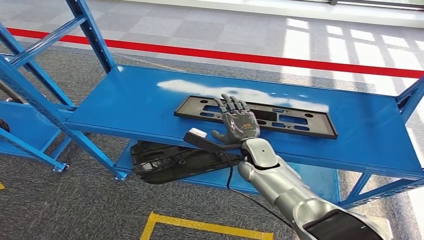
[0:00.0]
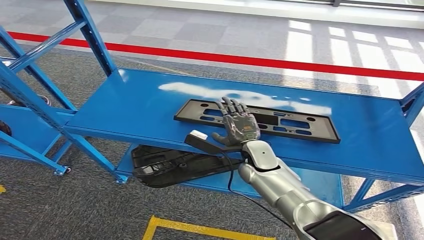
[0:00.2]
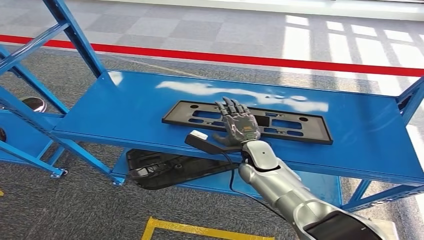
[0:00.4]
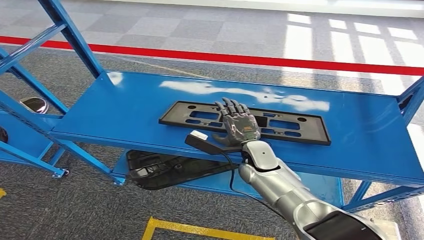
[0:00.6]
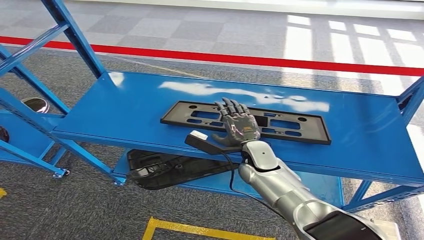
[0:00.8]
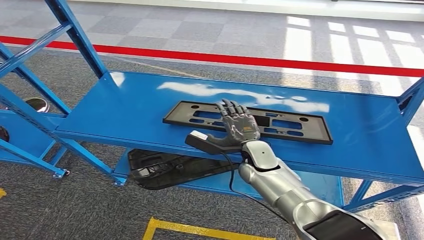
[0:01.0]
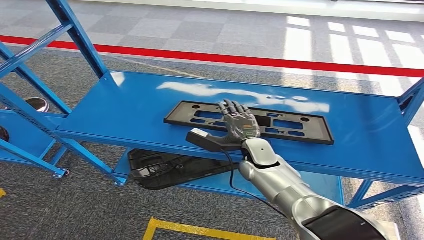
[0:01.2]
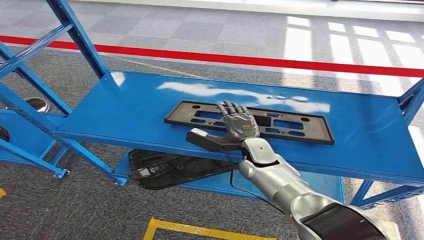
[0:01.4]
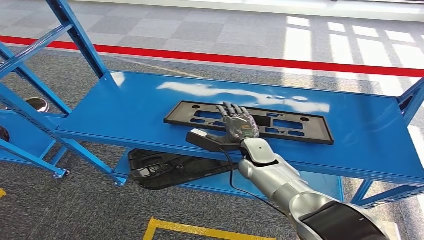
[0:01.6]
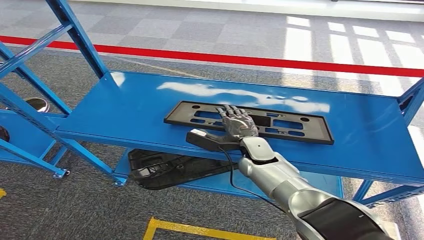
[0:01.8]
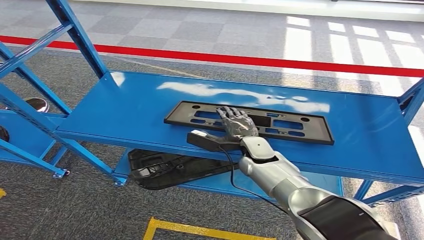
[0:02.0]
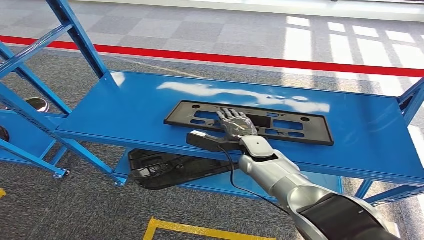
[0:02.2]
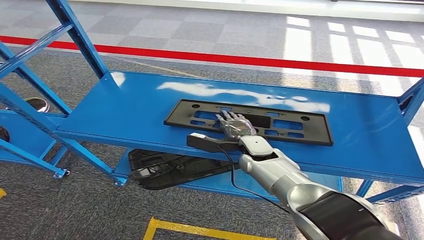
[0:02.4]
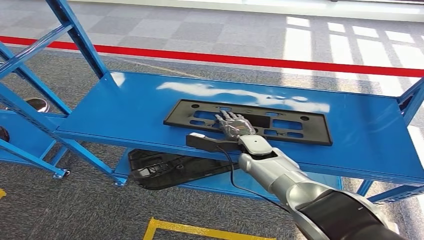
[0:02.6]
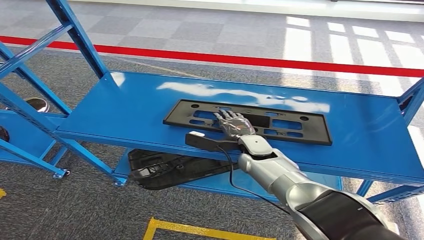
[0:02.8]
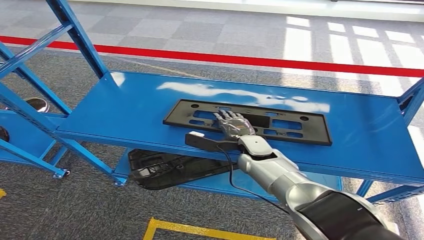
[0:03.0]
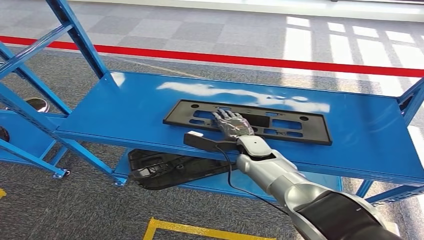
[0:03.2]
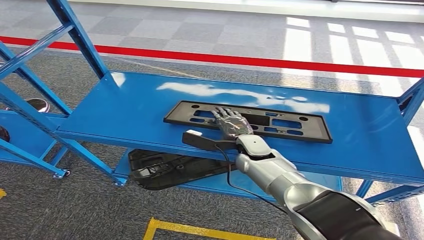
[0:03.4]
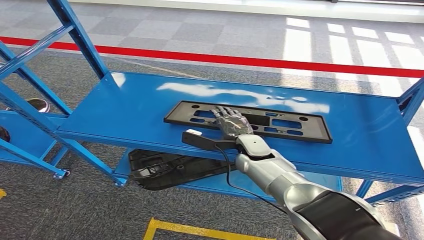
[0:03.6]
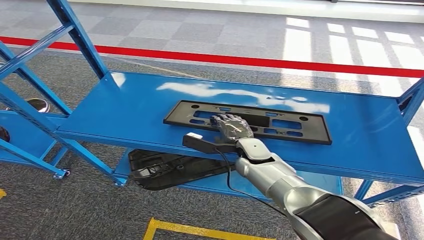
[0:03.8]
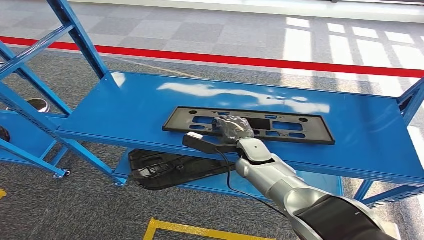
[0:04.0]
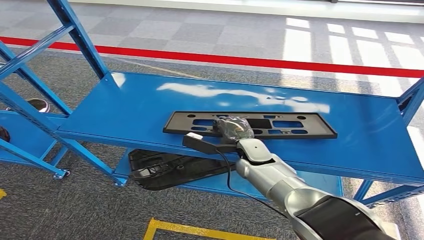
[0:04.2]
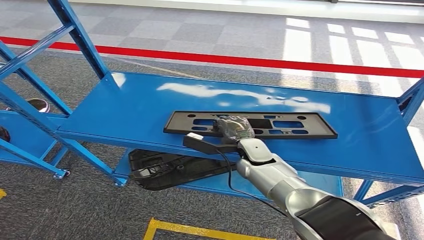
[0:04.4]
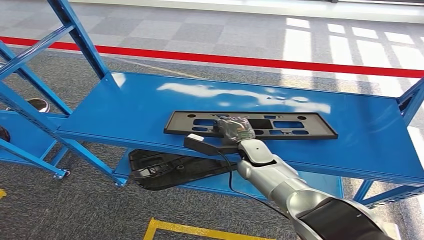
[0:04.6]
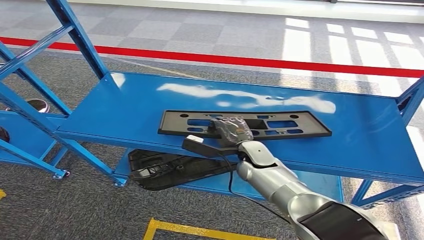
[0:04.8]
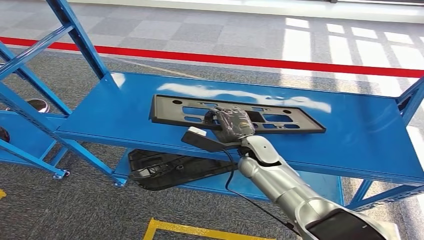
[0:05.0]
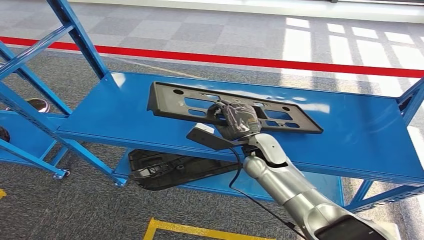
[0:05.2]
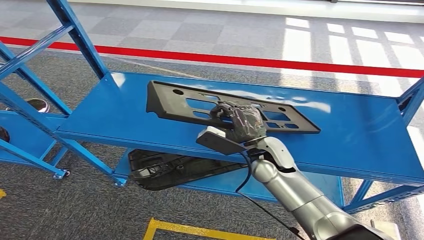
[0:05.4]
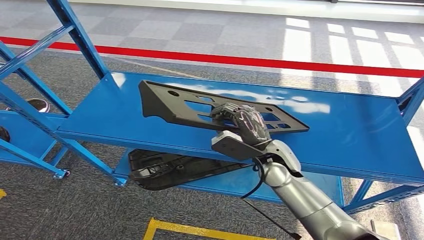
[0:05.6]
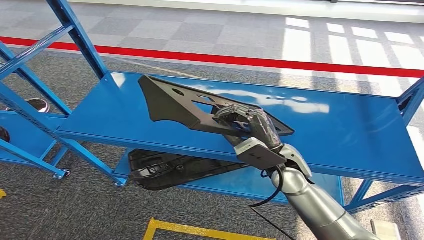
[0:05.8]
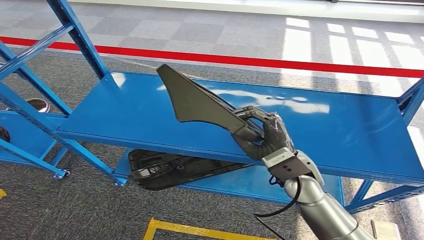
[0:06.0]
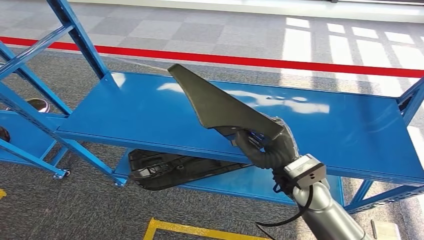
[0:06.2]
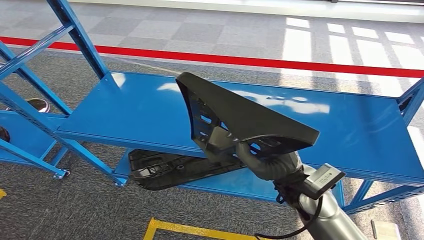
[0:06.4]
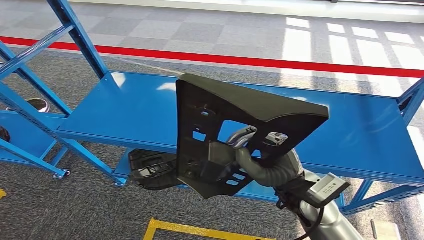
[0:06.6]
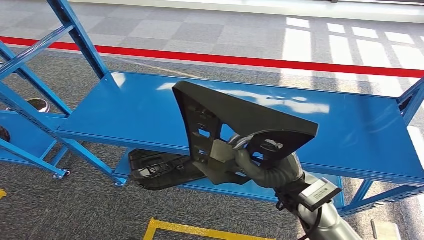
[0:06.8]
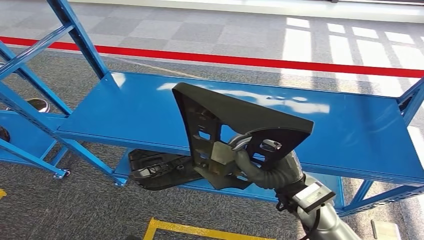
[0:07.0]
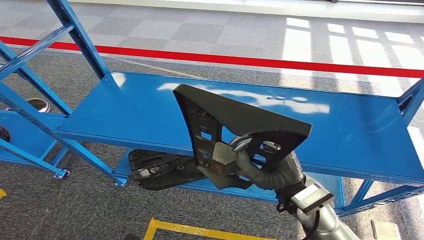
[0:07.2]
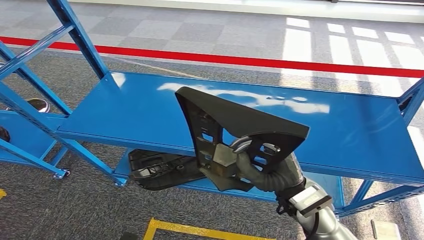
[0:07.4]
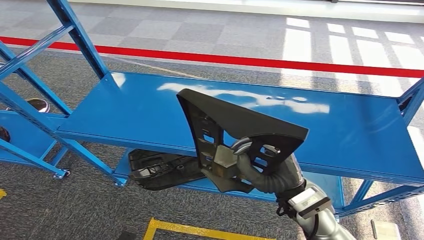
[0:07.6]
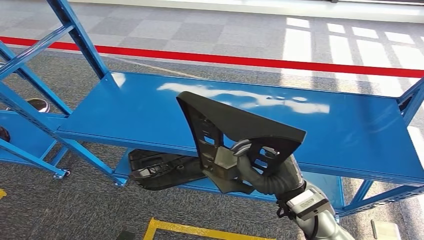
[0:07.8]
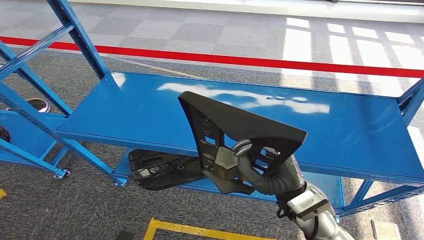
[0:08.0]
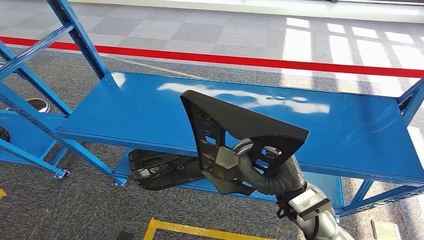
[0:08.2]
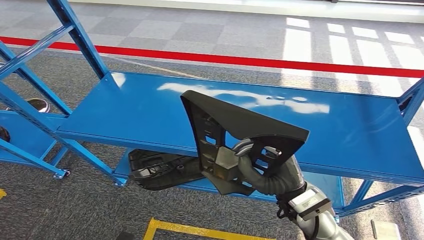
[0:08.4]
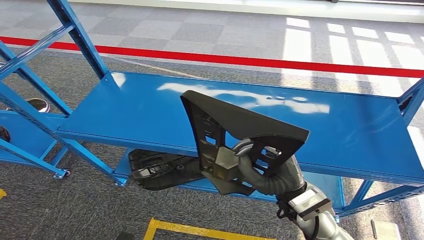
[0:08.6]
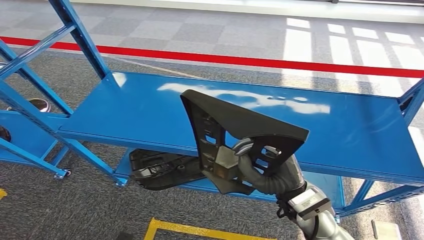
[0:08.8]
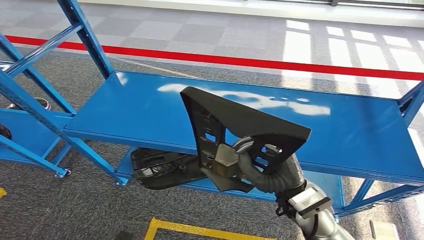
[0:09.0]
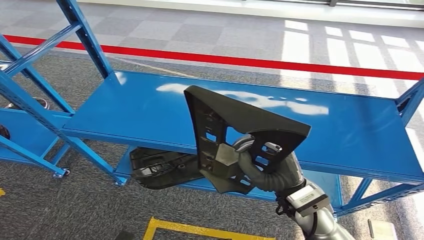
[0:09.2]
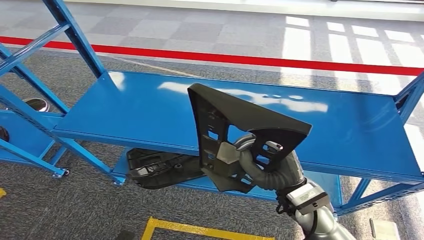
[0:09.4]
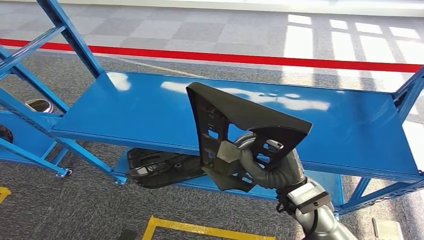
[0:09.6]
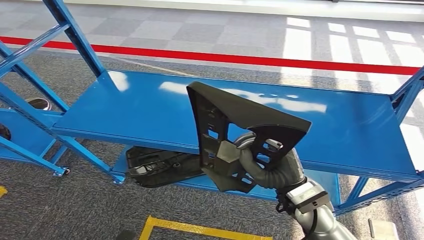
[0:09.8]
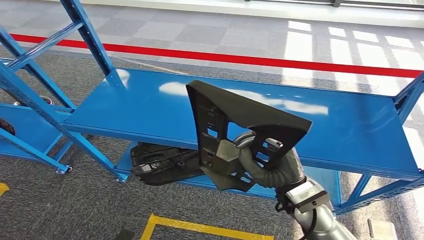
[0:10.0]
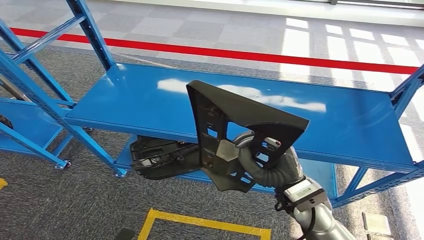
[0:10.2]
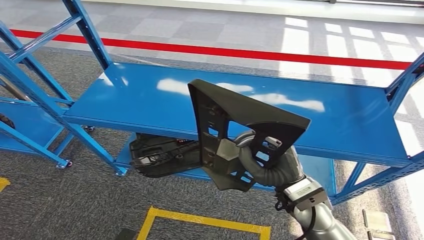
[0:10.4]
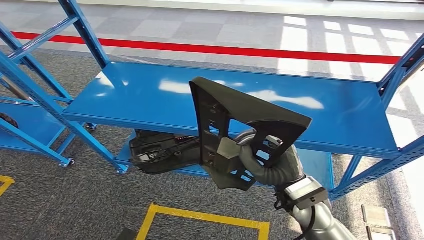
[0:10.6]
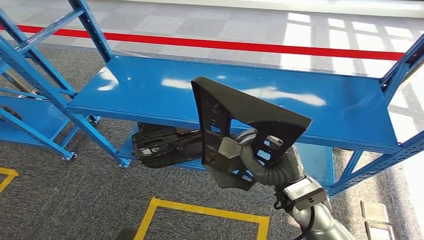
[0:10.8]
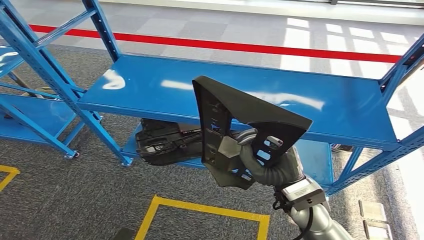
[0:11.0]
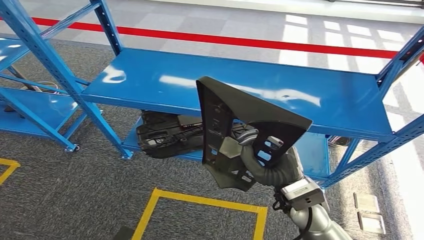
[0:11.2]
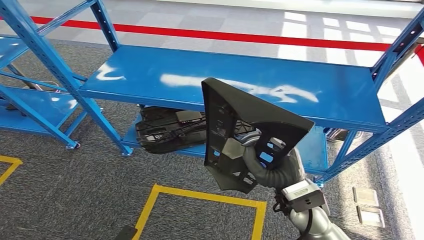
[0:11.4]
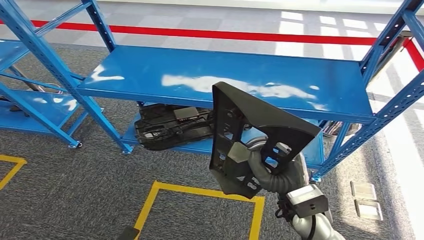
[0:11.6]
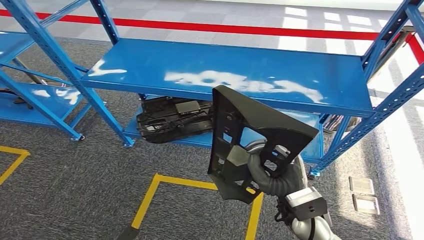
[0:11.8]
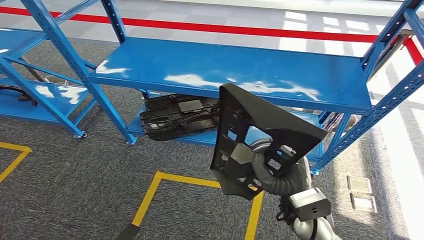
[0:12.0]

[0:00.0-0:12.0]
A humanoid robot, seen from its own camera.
Step, 0:00.0 to 0:06.0: Pick up the large material from the shelf.
0:01.6 to 0:04.4: There are only small adjustments of the hands.
0:04.4 to 0:06.0: The right hand goes approximately 15 cm backward, upward and to the right.
0:06.0 to 0:07.6: The right hand travels backward by approximately 5 cm.
0:07.6 to 0:09.0: Neither hand changes place.

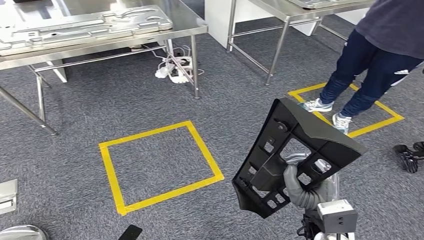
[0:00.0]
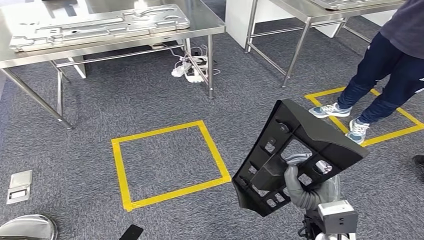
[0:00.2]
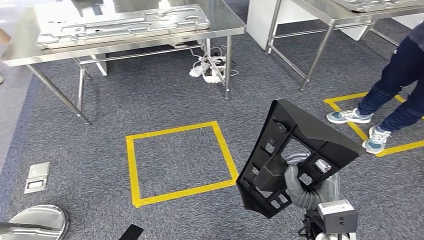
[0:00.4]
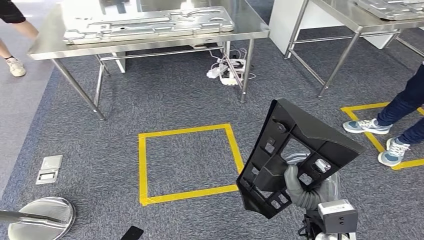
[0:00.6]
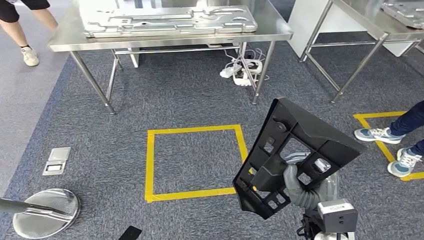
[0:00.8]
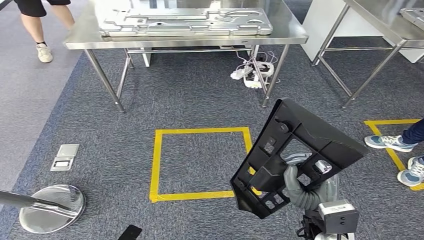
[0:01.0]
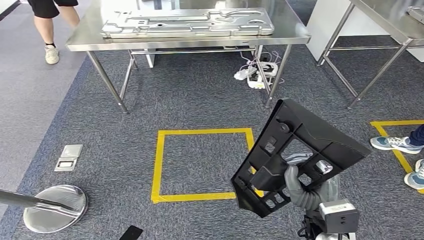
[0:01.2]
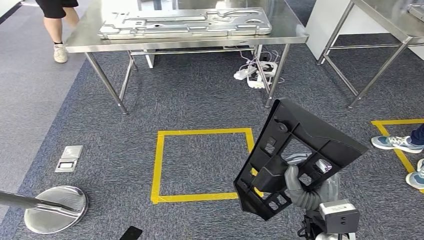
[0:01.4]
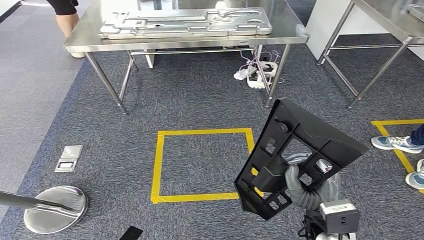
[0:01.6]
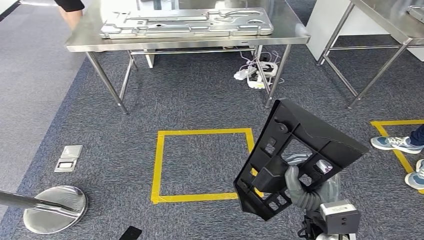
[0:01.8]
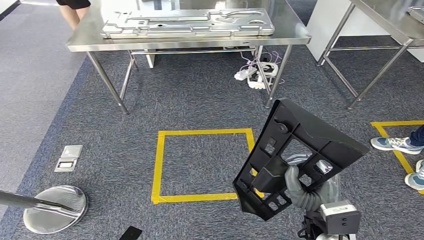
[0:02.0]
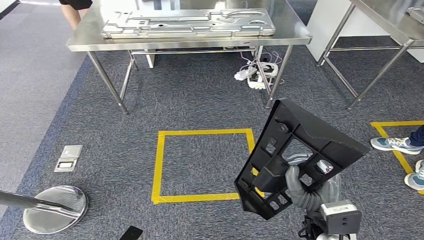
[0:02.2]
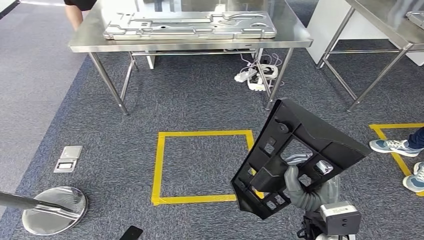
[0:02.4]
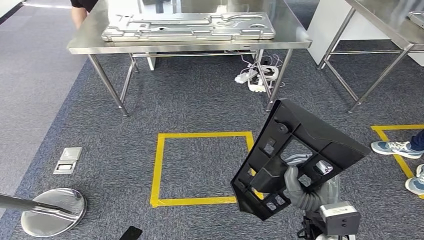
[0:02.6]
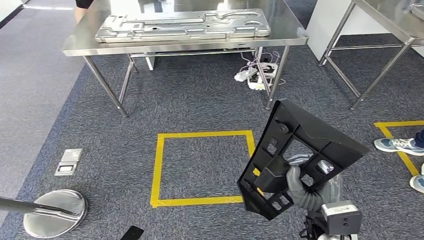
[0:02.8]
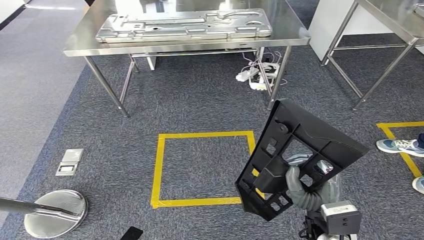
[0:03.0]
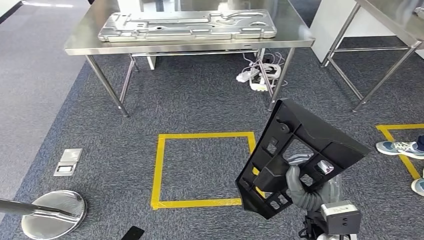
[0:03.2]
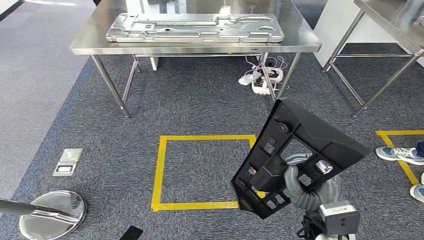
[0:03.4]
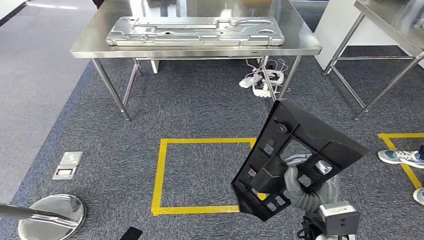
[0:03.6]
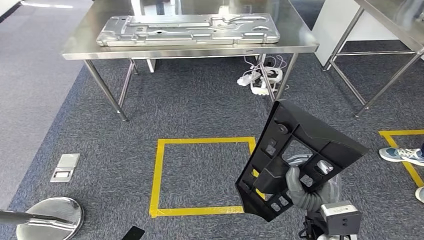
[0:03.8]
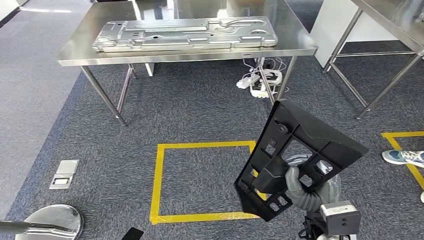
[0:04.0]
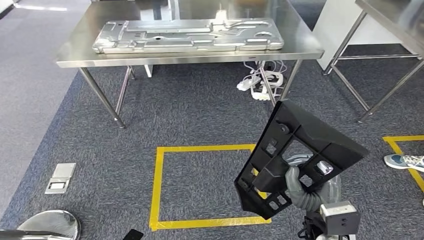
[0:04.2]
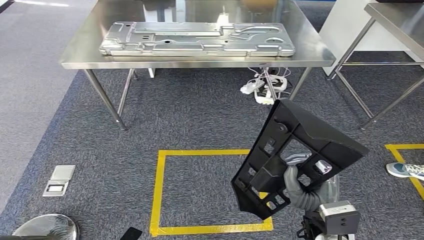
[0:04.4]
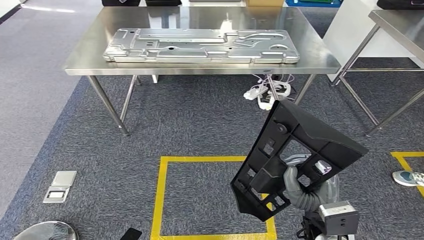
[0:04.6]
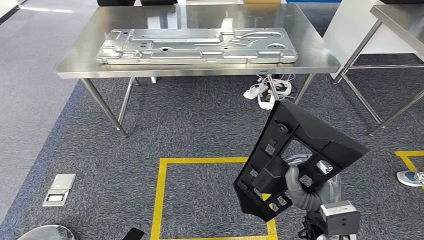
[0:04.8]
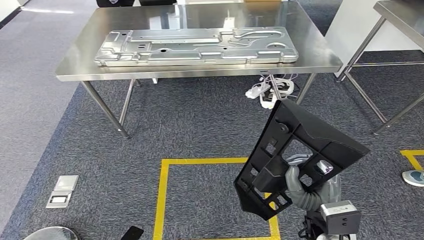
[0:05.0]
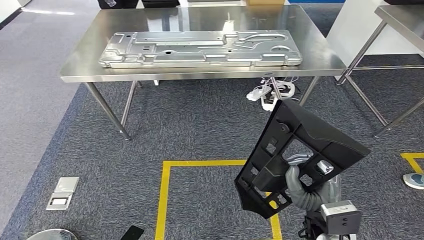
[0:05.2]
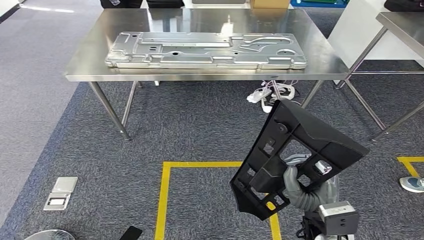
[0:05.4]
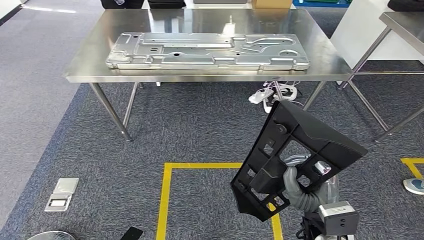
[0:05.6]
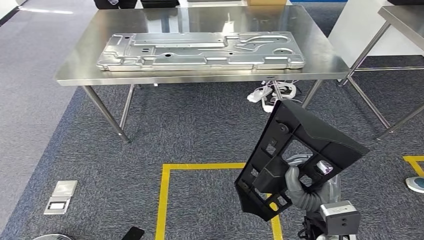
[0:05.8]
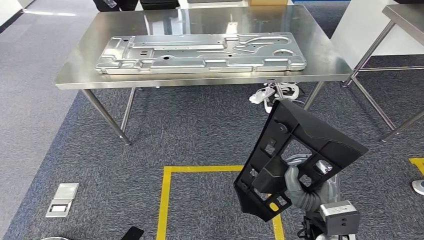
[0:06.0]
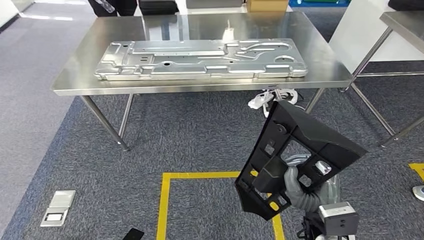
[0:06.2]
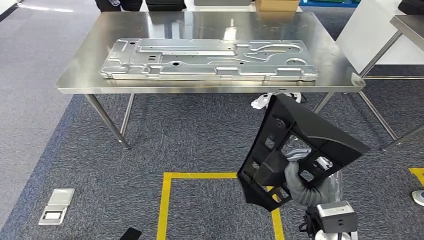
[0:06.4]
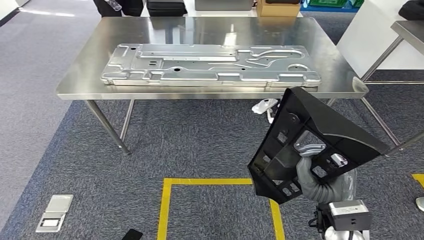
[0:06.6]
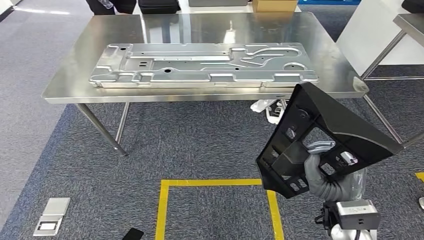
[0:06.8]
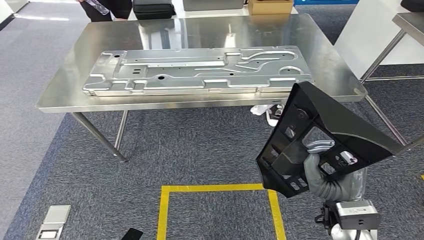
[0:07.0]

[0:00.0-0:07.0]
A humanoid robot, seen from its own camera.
0:01.4 to 0:02.8: Both hands stay put.
